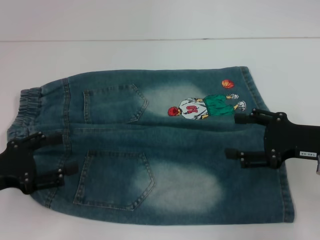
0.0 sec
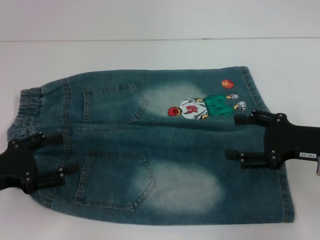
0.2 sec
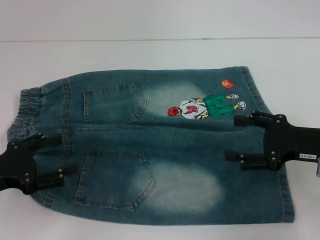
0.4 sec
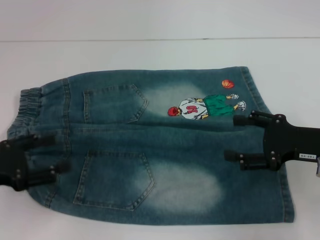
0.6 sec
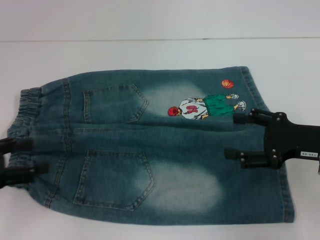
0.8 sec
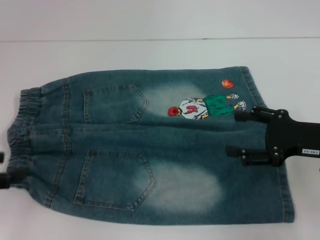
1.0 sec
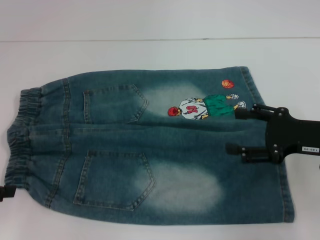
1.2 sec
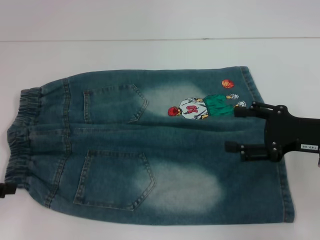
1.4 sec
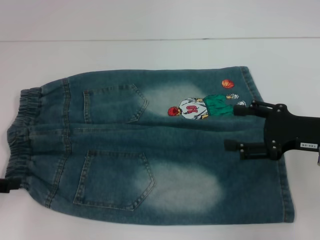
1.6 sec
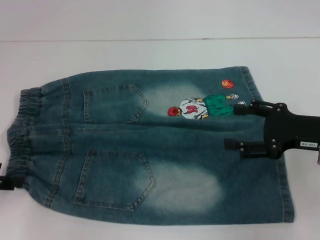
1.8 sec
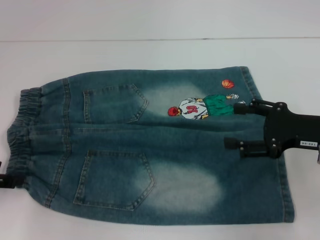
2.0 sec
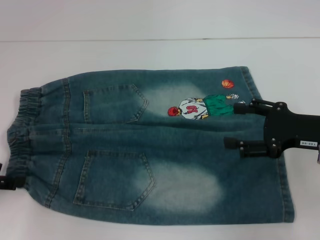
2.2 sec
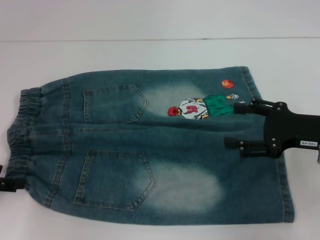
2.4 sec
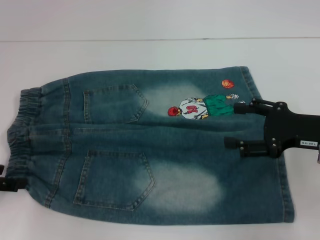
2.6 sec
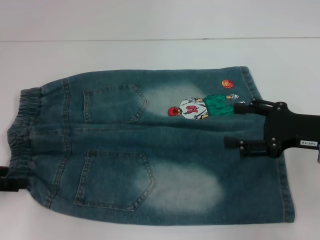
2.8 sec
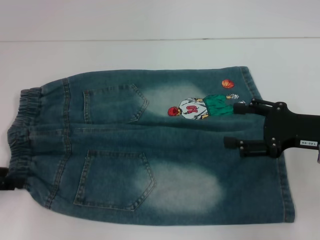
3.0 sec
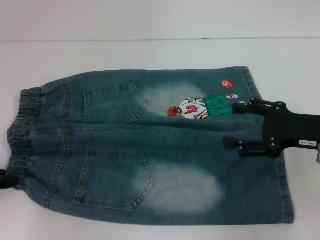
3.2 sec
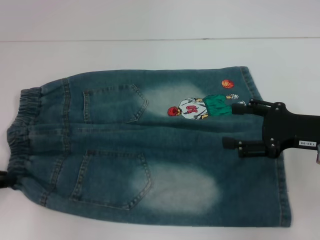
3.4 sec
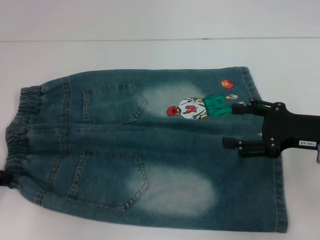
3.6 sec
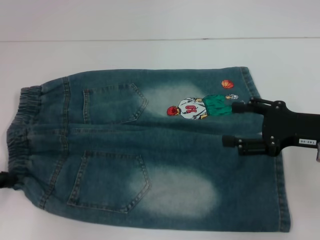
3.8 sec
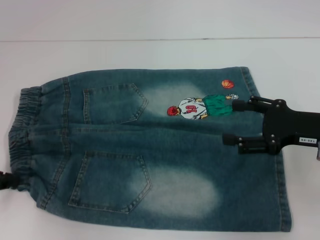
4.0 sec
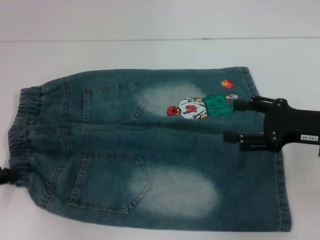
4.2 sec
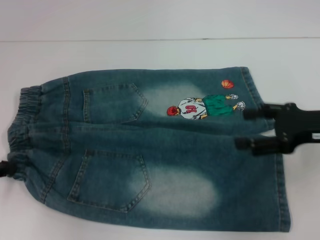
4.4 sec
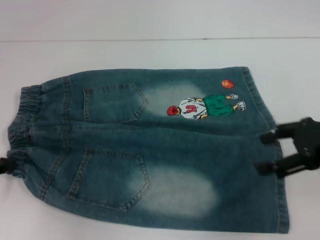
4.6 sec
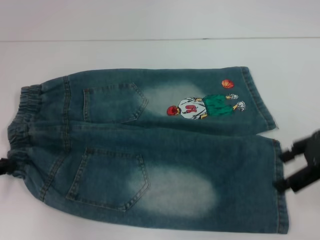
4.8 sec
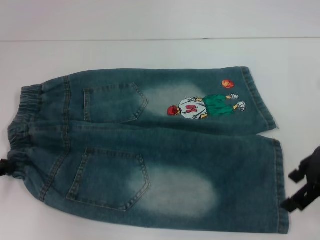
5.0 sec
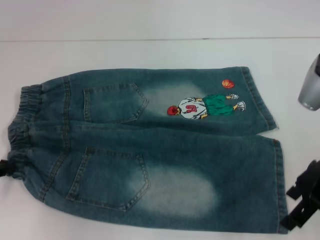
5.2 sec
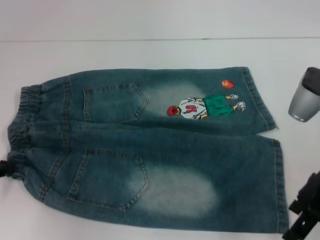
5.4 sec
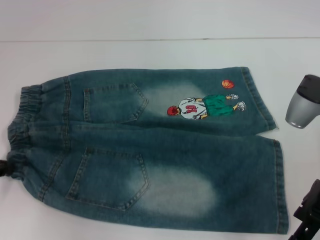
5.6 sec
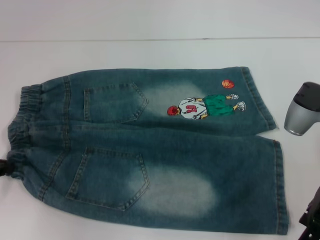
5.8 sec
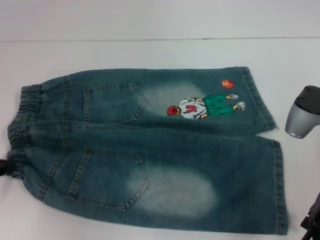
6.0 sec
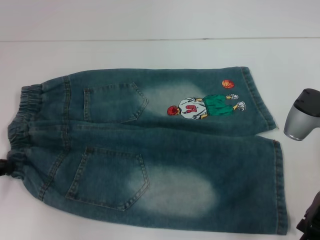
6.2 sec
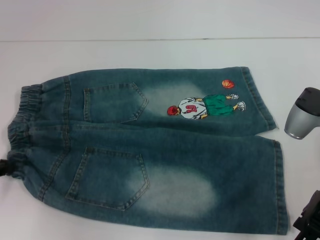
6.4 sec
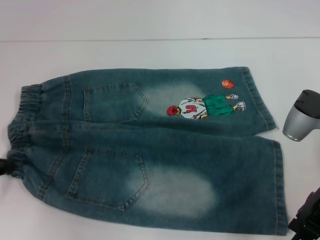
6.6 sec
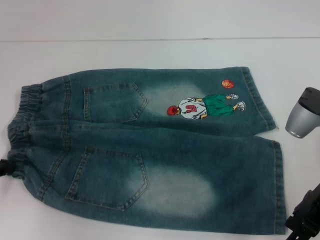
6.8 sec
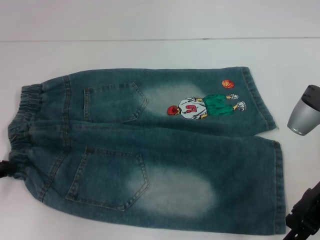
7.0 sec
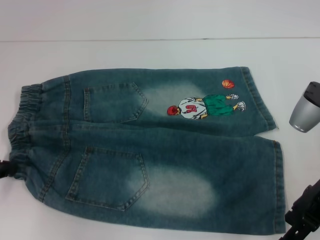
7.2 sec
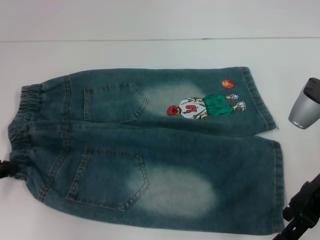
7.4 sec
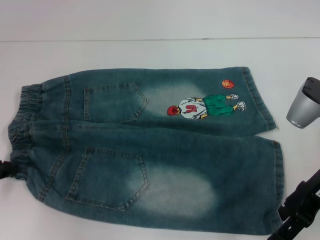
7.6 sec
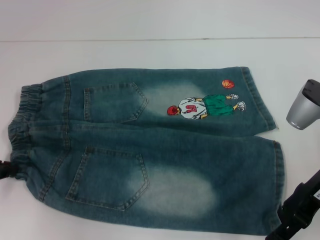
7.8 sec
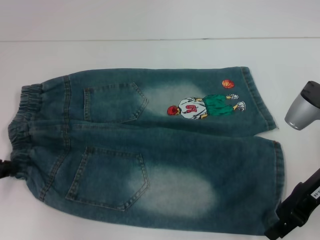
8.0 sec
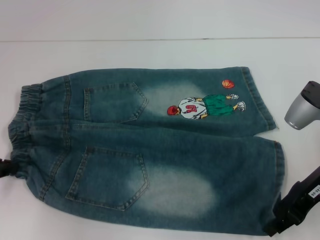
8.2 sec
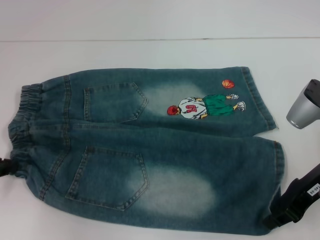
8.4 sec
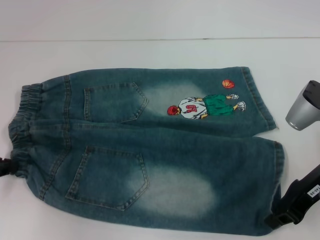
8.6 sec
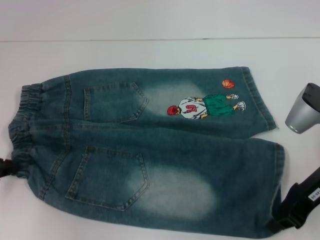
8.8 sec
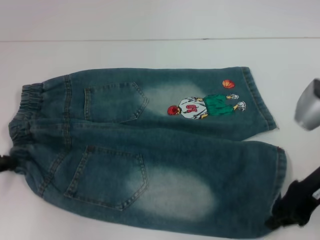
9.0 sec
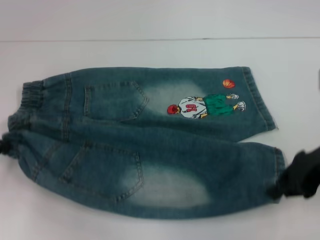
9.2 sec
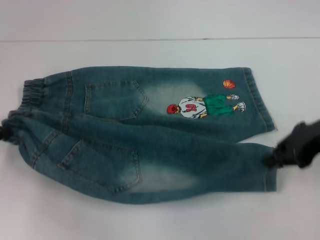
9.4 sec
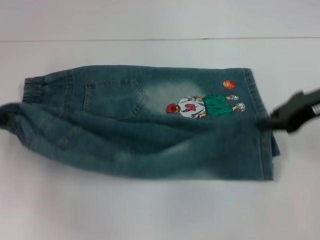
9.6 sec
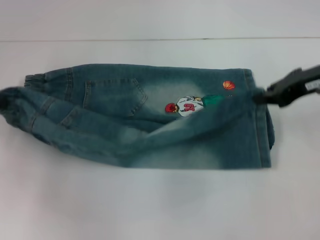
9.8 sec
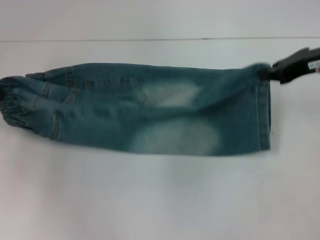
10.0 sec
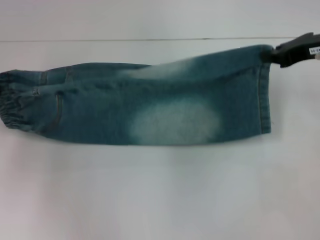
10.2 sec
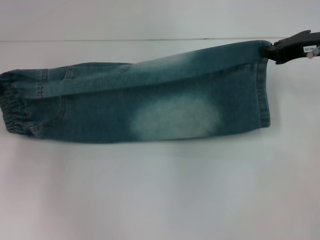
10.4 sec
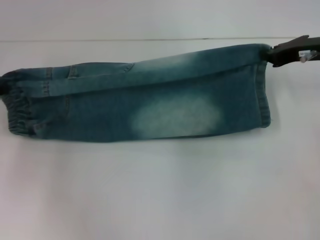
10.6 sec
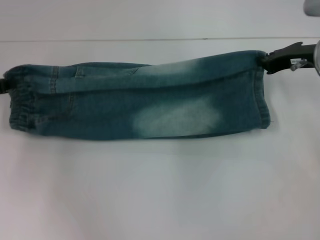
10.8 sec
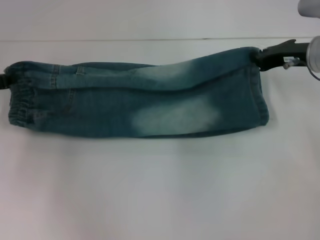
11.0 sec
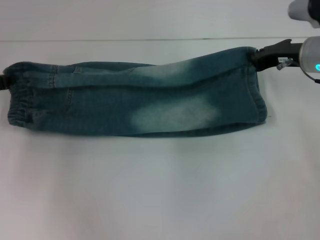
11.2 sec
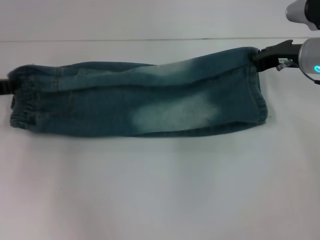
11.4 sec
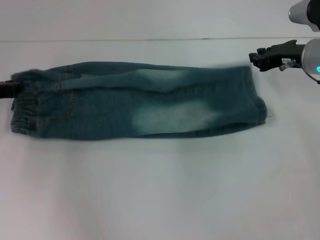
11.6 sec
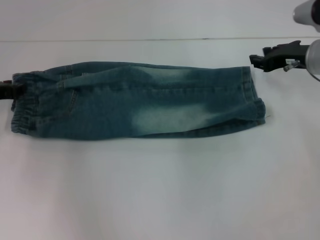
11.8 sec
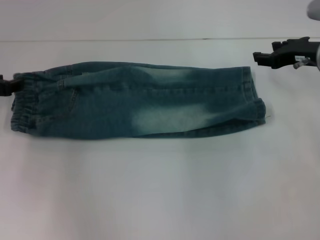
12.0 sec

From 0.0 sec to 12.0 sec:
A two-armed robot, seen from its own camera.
Step, from 0.0 sec to 4.0 sec: Hold the lower left waistband with your left hand.
Step, from 4.2 sec to 8.6 sec: Grab the lower right pant leg with your right hand.
Step, from 8.8 sec to 11.4 sec: Fold upward with your right hand.
From 0.0 sec to 1.6 sec: The left gripper changes place by approximately 5 cm.
From 1.6 sec to 3.0 sec: The grippers stay close to where they were, moving slightly.
From 3.0 sec to 4.4 sec: The left gripper closes up.
From 4.4 sec to 6.0 sec: The right gripper moves some 5 cm.
From 6.0 sec to 7.6 sec: The grippers stay close to where they were, moving slightly.
From 7.6 sec to 9.0 sec: The right gripper closes its fingers.
From 9.0 sec to 10.4 sec: The left gripper shifts by approximately 5 cm; the right gripper is displaced forward and upward by roughly 10 cm.
From 10.4 sec to 12.0 sec: The right gripper opens.

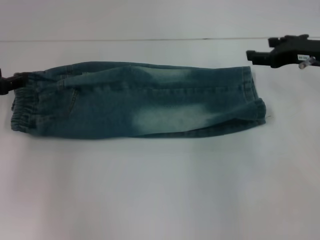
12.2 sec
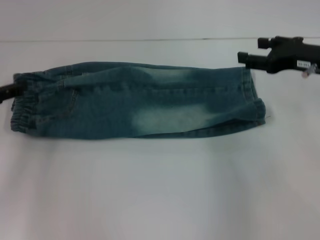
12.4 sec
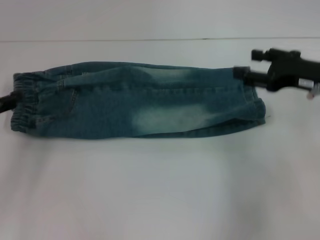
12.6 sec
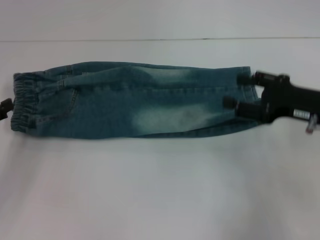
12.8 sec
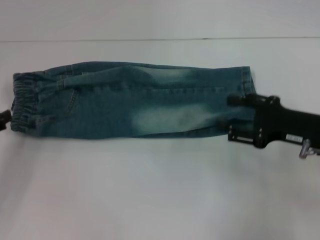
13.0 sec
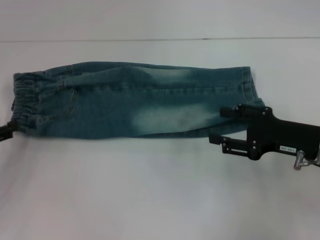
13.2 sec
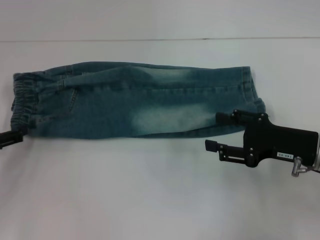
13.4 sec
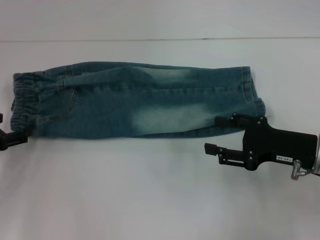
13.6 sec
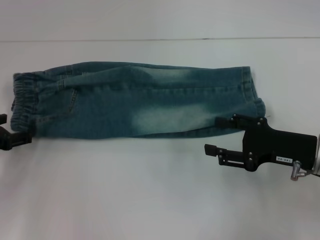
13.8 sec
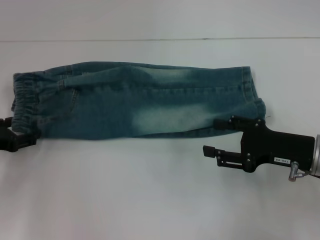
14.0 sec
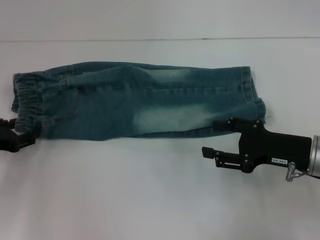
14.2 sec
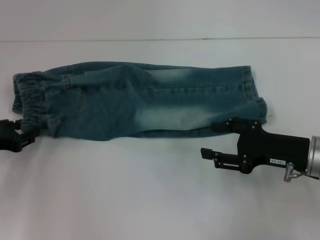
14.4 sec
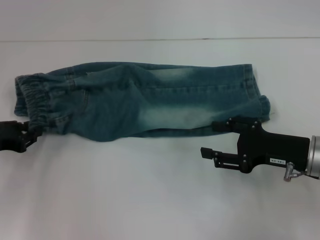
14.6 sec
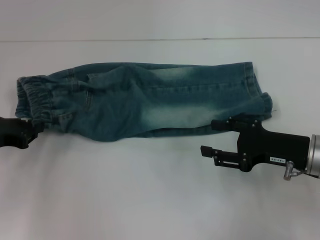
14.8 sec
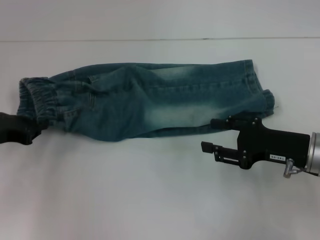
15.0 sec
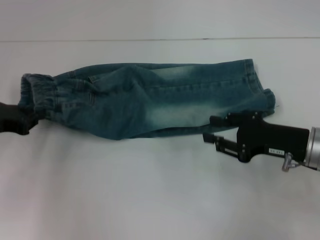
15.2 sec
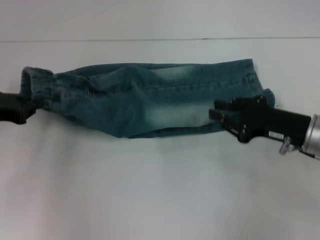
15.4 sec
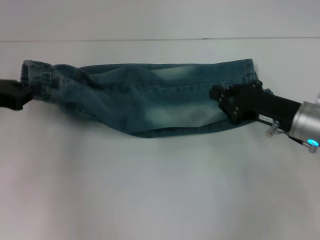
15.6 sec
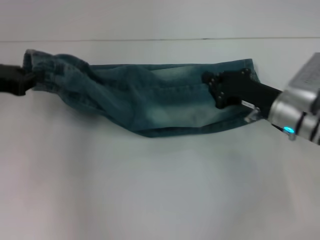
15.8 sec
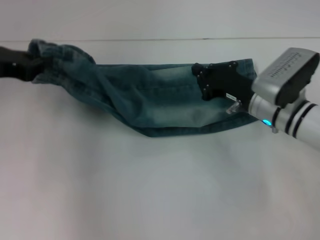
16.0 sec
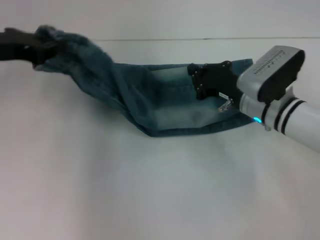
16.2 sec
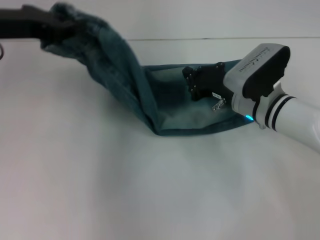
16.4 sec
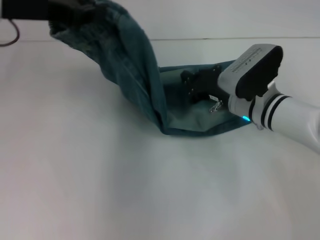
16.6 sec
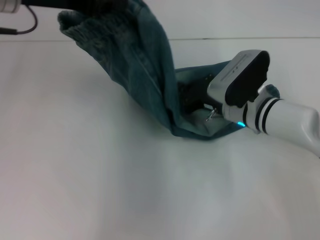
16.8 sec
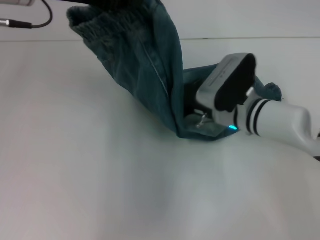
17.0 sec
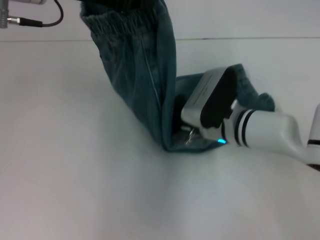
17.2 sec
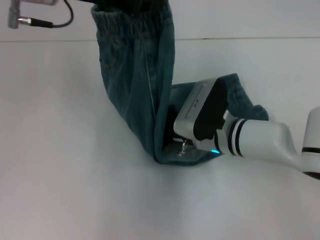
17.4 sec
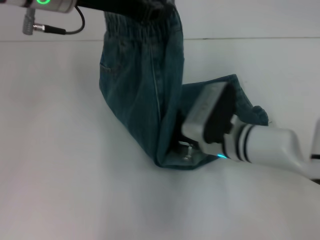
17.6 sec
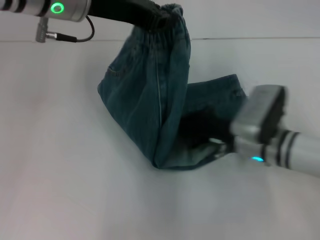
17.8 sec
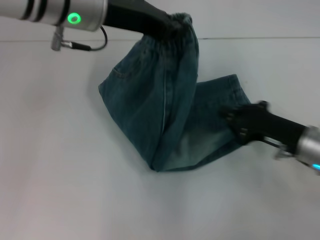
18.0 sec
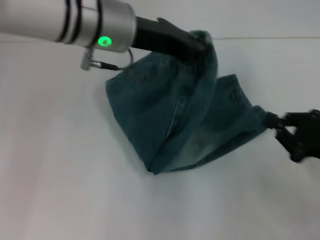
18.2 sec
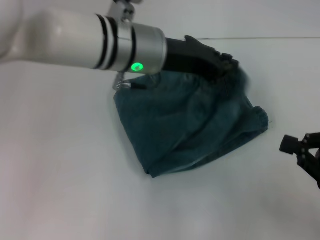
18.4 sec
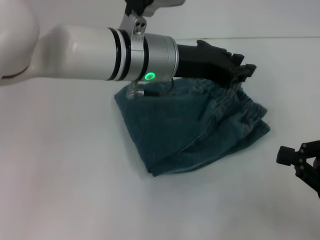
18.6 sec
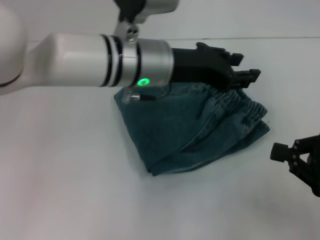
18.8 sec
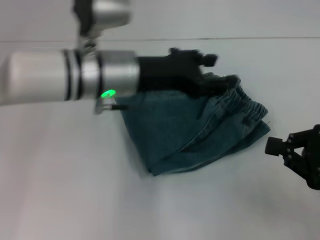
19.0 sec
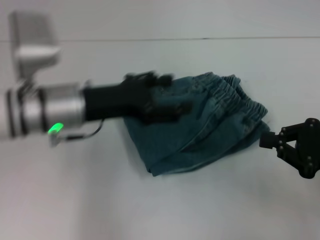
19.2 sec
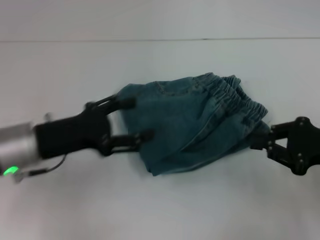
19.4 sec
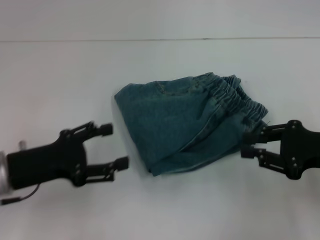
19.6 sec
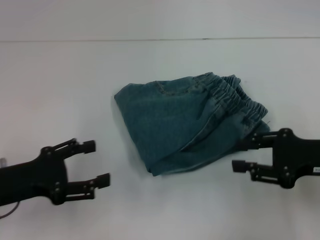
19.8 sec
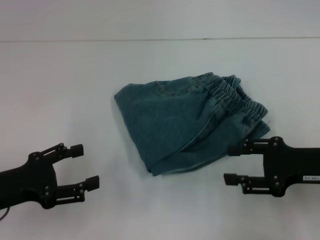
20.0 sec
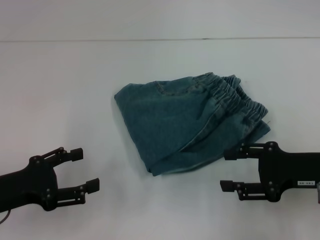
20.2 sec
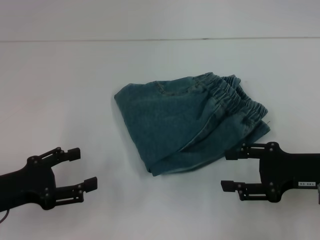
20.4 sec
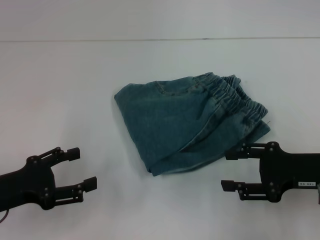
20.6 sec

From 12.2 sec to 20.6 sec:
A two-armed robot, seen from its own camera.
Step, from 12.2 sec to 14.4 sec: Hold the waistband with your left hand.
Step, from 14.8 sec to 17.4 sec: Press the middle of the pants with your right hand.
Step, from 17.6 sec to 18.6 sec: Fold to the right with your left hand.
From 12.2 sec to 13.6 sec: The right gripper goes roughly 15 cm backward and downward, while the left gripper travels backward by approximately 5 cm, and opens its fingers.
From 13.6 sec to 15.0 sec: The left gripper closes its fingers.
From 15.0 sec to 16.4 sec: The right gripper heads forward and to the left, covering about 15 cm, and closes up. The left gripper travels upward, to the right and forward by some 15 cm.
From 16.4 sec to 17.8 sec: The left gripper is displaced to the right by approximately 10 cm. Meanwhile the right gripper shifts by about 5 cm.
From 17.8 sec to 19.2 sec: The left gripper goes some 15 cm downward and backward, and opens its fingers. Meanwhile the right gripper moves to the right, backward and upward, approximately 20 cm.
From 19.2 sec to 20.6 sec: The right gripper opens its fingers. Meanwhile the left gripper shifts approximately 20 cm to the left, backward and downward.

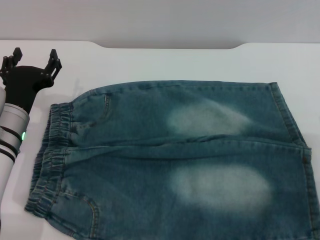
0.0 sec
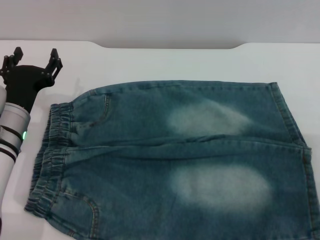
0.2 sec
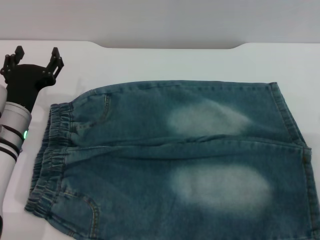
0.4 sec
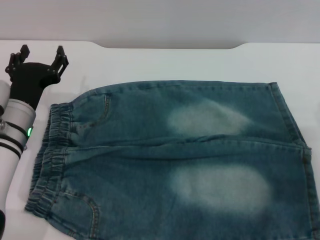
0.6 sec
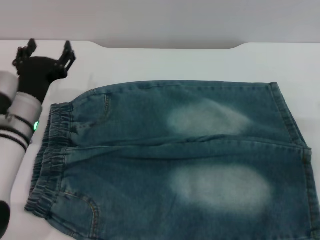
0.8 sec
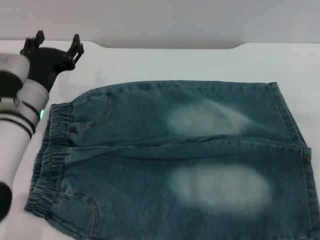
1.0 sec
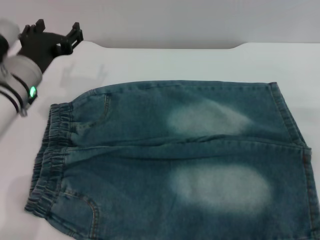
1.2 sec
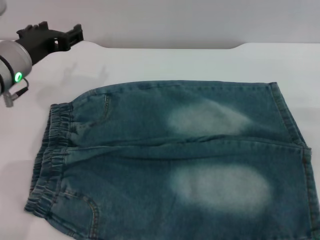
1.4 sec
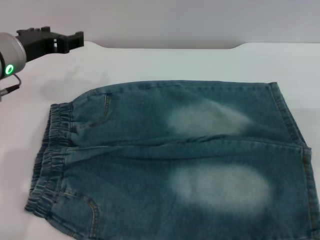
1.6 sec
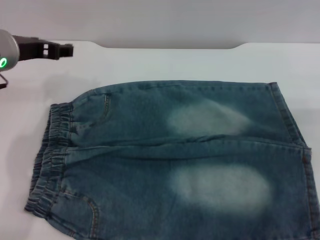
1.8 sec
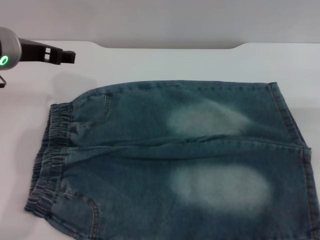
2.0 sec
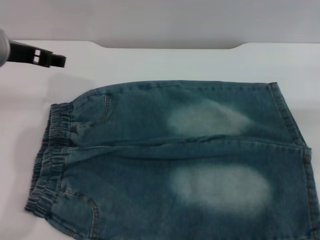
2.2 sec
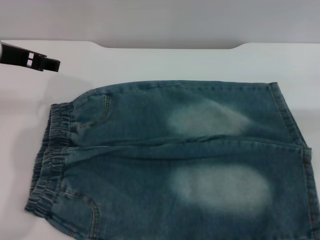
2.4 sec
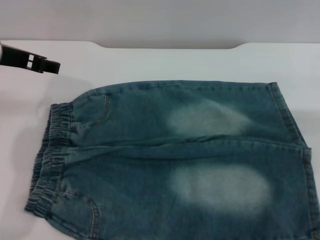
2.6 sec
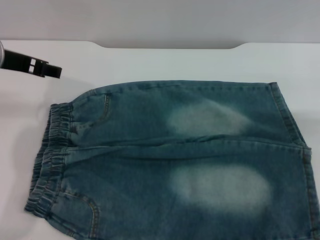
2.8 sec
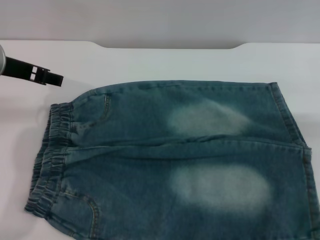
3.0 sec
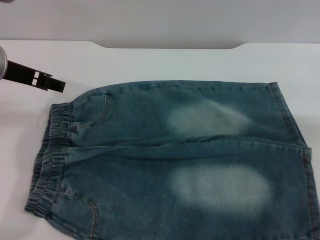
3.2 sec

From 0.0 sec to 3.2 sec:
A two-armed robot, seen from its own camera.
From 0.0 sec to 1.6 sec: The left gripper is displaced upward by about 15 cm.
